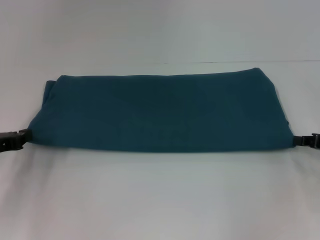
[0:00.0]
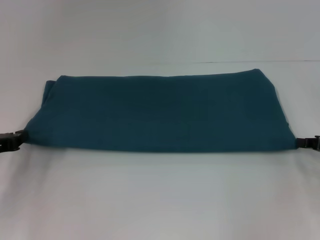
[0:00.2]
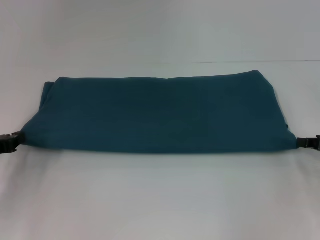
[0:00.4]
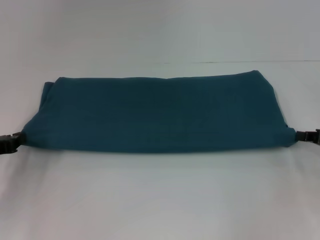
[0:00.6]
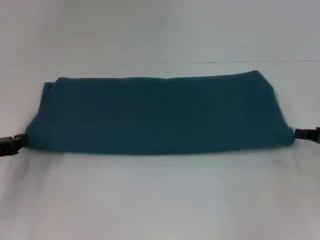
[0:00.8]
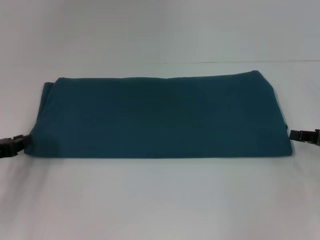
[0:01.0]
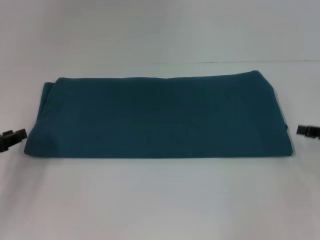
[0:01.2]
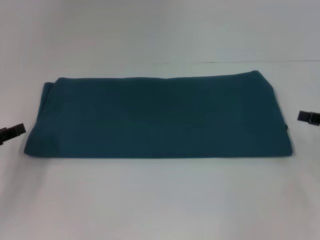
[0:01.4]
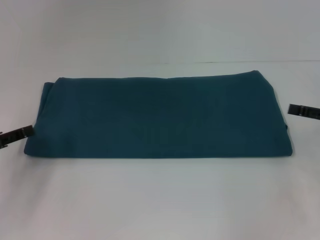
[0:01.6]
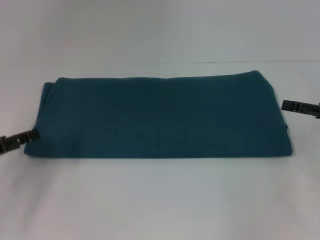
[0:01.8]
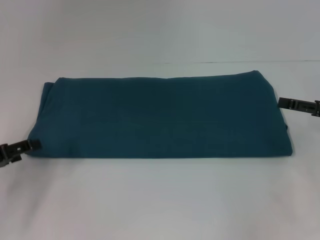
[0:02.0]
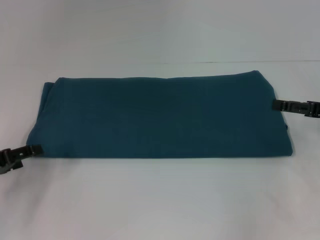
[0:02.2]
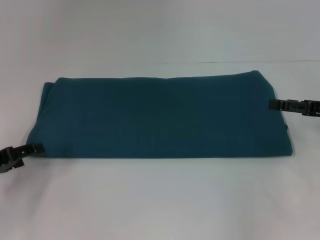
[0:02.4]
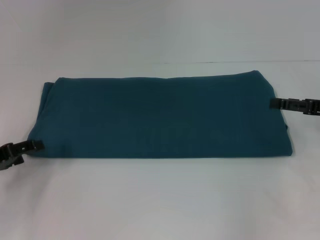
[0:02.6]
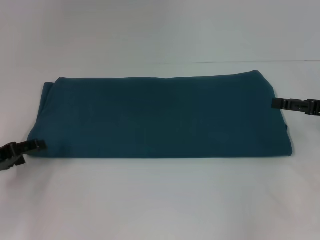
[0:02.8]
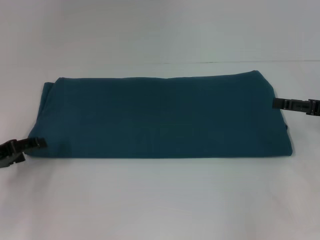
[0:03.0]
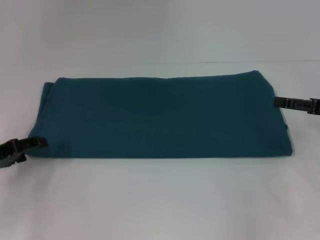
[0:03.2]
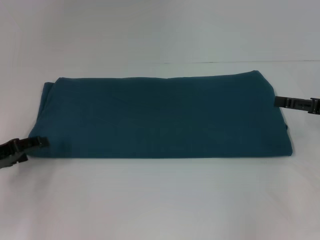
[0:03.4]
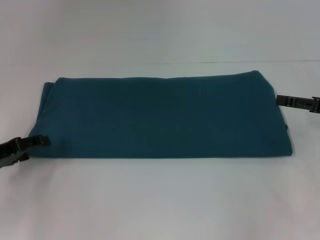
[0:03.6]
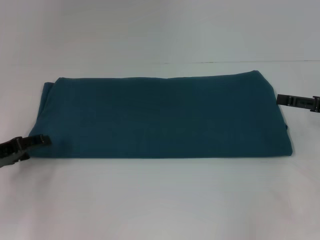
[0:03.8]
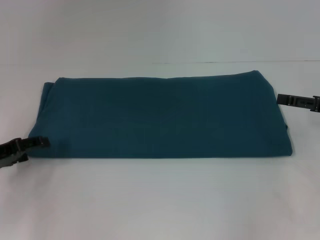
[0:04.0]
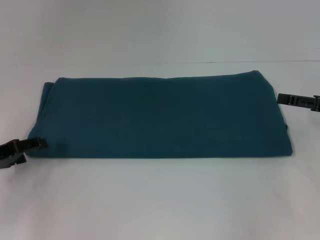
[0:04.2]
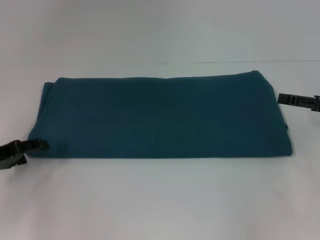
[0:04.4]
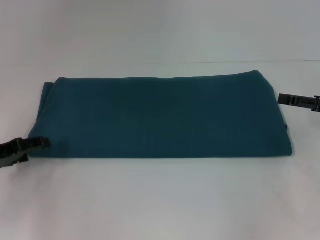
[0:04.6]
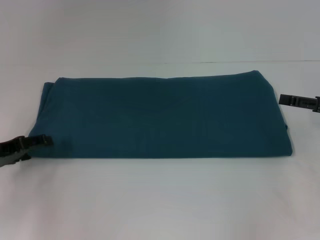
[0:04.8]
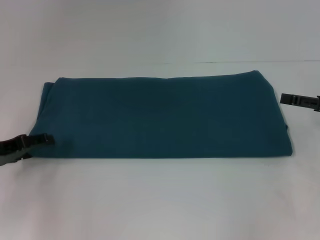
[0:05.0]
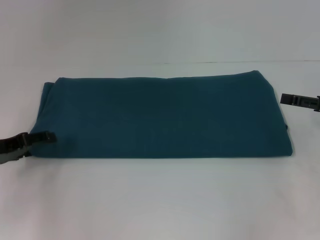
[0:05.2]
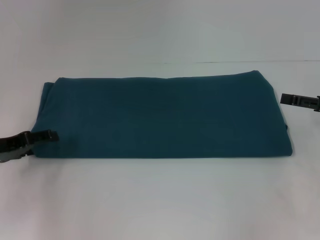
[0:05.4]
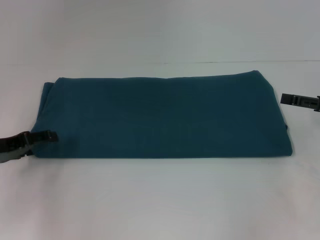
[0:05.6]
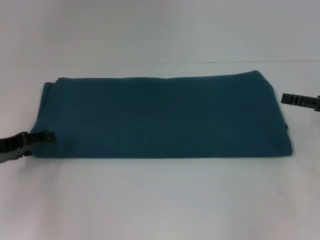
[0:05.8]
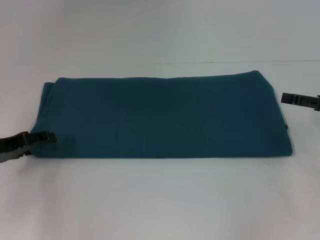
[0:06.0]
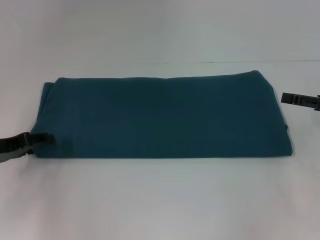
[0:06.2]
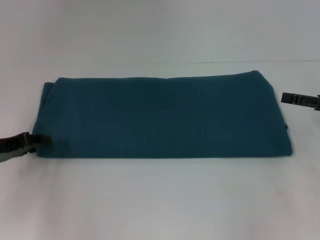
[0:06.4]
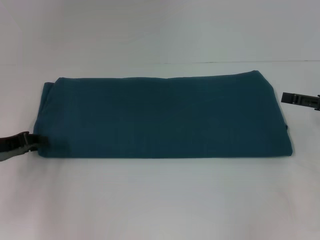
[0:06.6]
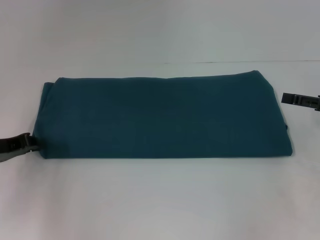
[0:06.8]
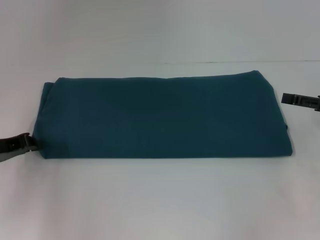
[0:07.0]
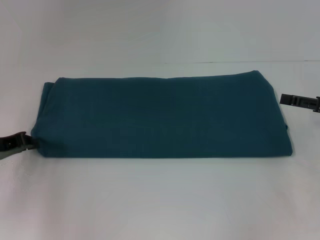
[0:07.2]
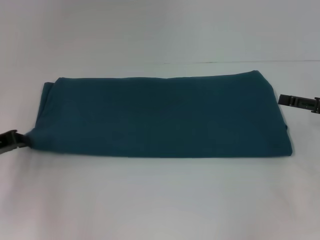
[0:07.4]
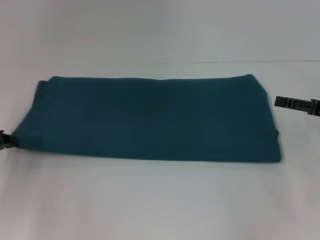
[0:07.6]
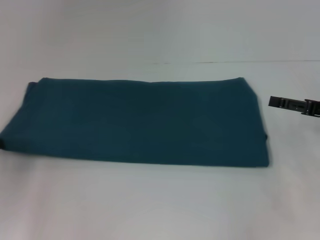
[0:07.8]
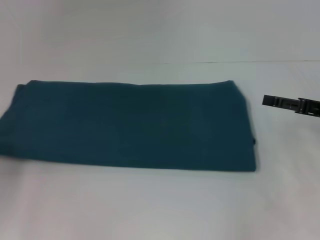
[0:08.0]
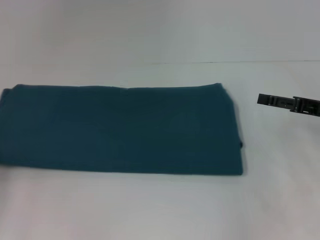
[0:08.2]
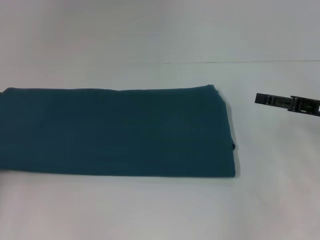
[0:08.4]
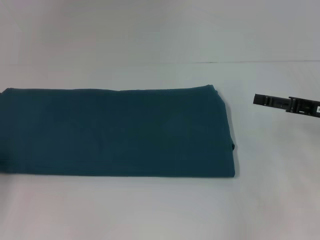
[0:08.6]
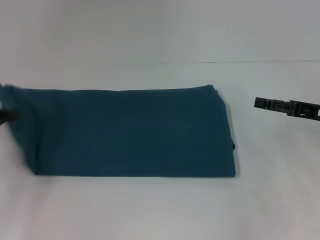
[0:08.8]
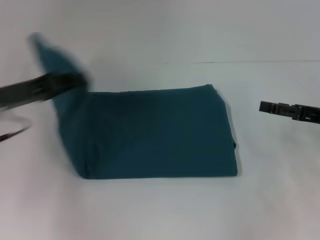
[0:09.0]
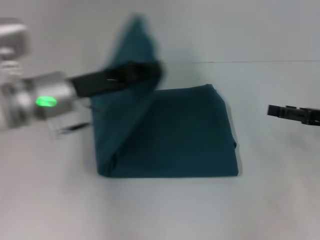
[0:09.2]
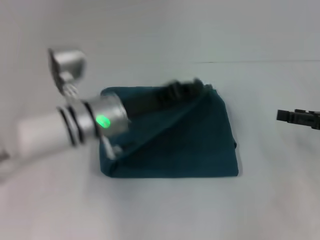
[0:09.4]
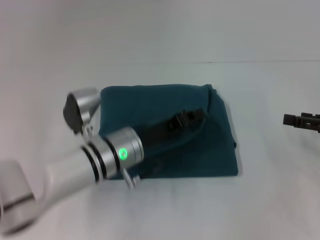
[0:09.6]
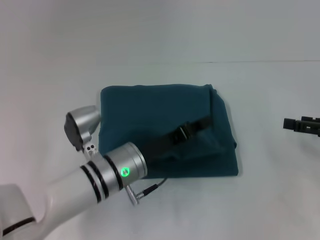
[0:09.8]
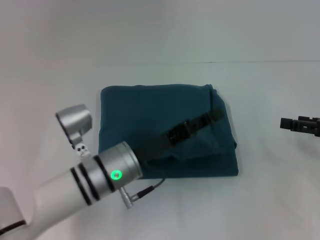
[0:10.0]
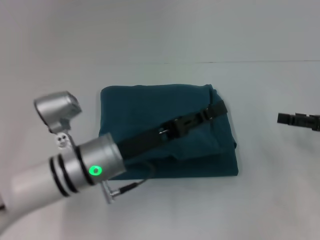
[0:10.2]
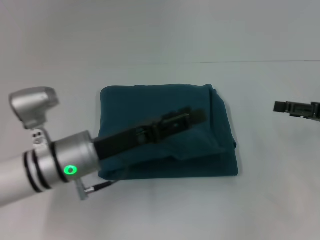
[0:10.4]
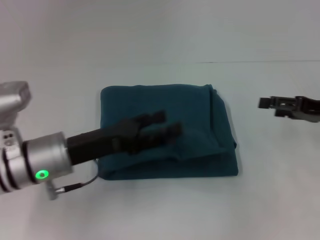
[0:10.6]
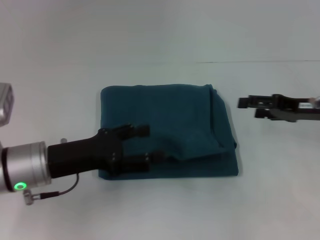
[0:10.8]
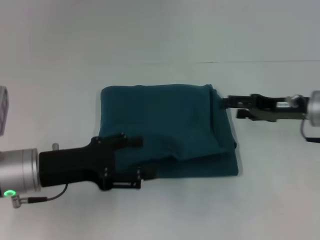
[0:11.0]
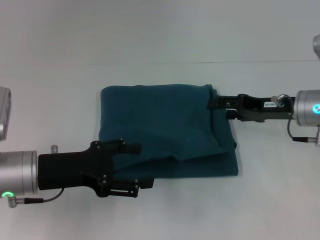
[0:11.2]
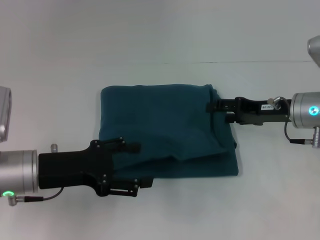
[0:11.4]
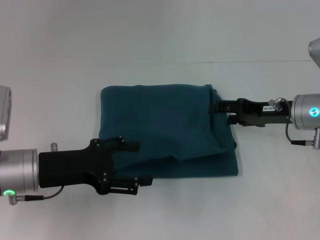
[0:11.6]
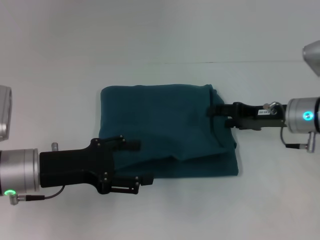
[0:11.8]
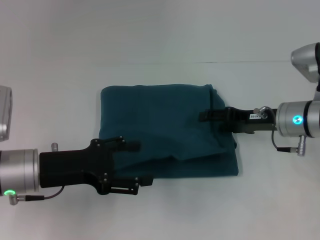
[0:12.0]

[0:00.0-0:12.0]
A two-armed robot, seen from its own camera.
Step, 0:00.0 to 0:10.2: Fold the clothes to the left.
0:00.0 to 0:01.6: The right gripper opens up, while the left gripper opens up.
0:01.6 to 0:03.0: The right gripper opens its fingers.
0:03.0 to 0:04.4: Both grippers stay about where they are.
0:04.4 to 0:06.0: The grippers move only a little.
0:06.0 to 0:07.6: The left gripper closes its fingers.
0:07.6 to 0:09.0: The left gripper goes about 10 cm to the right and upward.
0:09.0 to 0:10.4: The left gripper moves to the right and downward, about 15 cm, and opens.
0:10.4 to 0:12.0: The right gripper travels to the left by roughly 10 cm, while the left gripper shifts about 10 cm to the left, and opens its fingers.

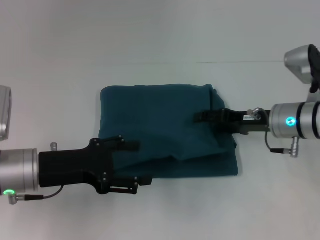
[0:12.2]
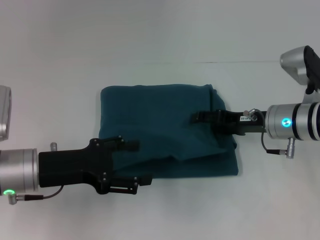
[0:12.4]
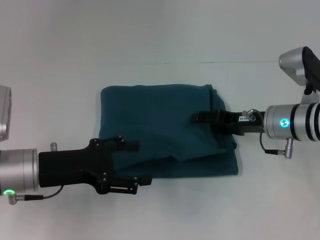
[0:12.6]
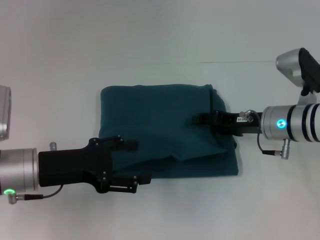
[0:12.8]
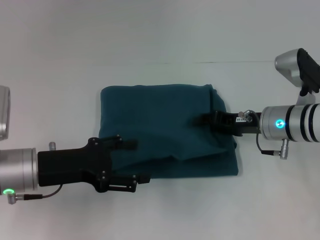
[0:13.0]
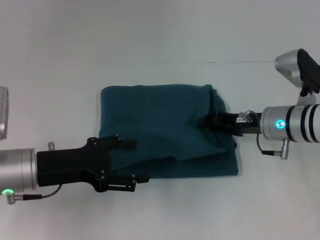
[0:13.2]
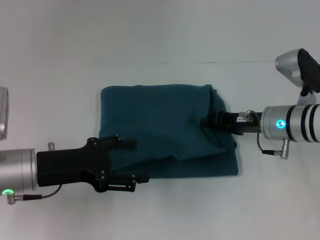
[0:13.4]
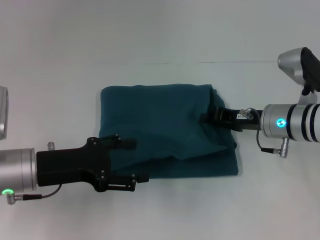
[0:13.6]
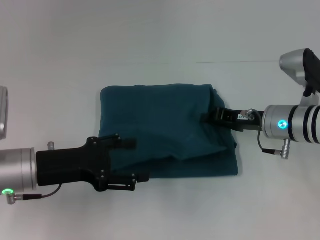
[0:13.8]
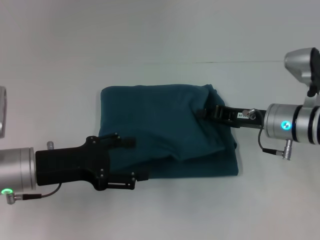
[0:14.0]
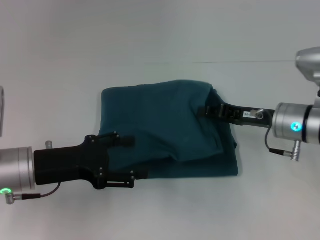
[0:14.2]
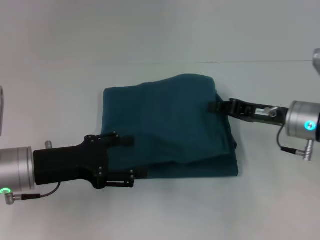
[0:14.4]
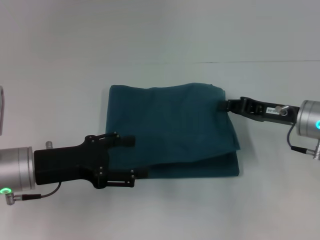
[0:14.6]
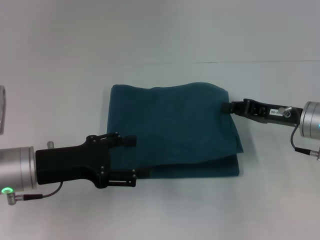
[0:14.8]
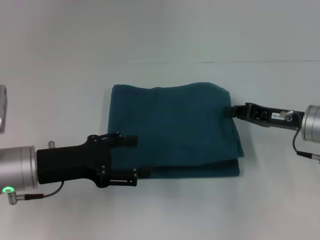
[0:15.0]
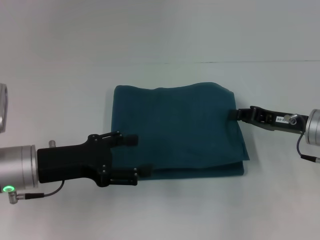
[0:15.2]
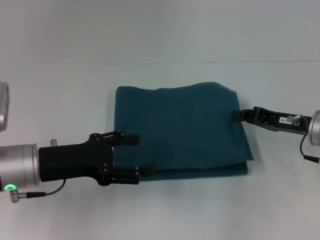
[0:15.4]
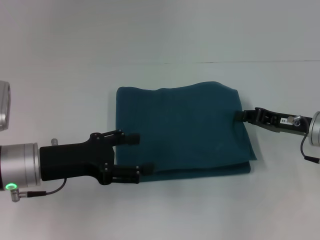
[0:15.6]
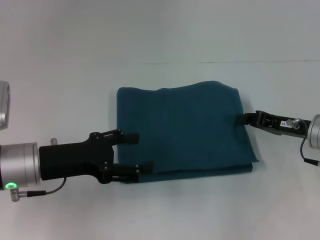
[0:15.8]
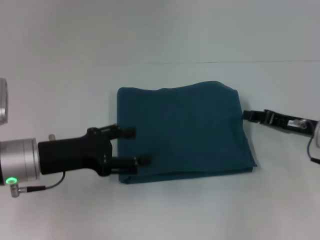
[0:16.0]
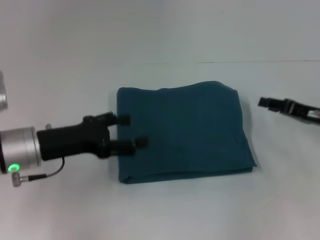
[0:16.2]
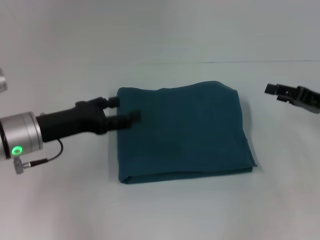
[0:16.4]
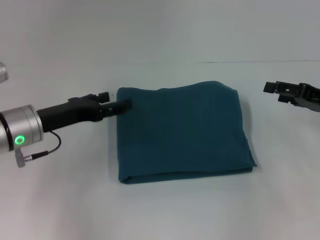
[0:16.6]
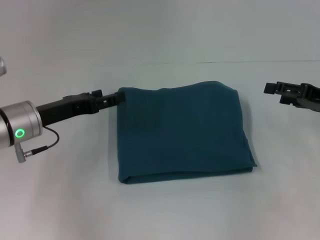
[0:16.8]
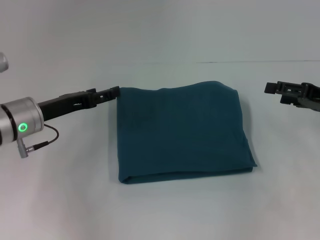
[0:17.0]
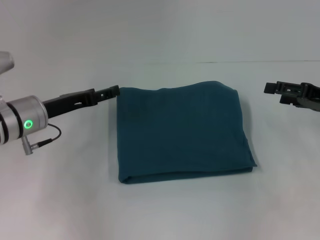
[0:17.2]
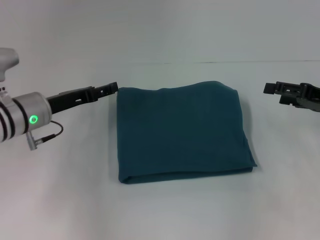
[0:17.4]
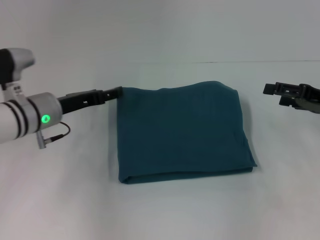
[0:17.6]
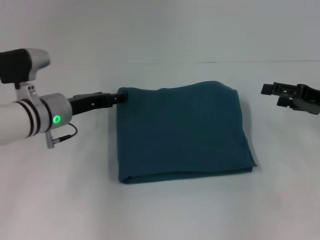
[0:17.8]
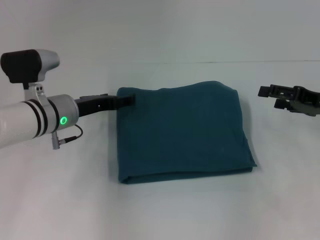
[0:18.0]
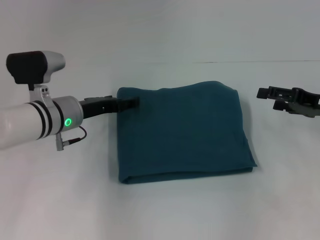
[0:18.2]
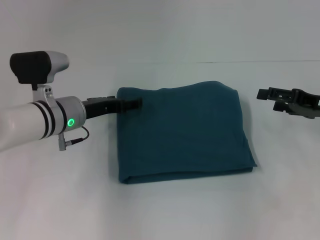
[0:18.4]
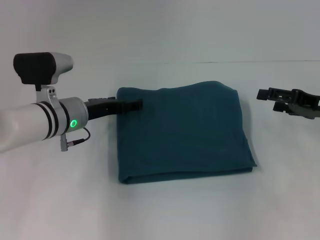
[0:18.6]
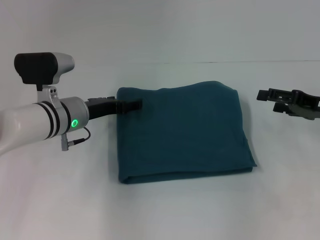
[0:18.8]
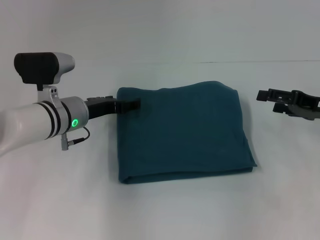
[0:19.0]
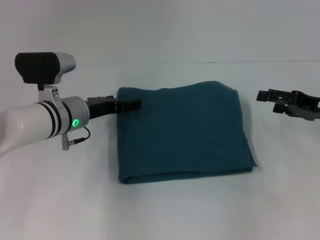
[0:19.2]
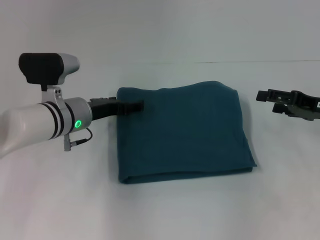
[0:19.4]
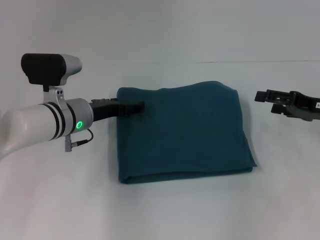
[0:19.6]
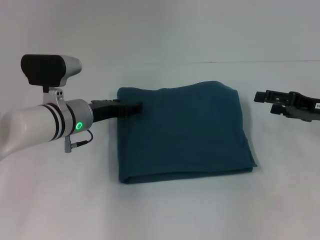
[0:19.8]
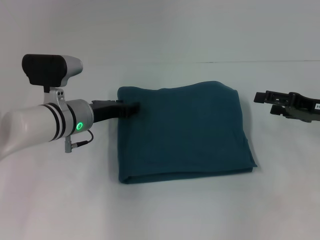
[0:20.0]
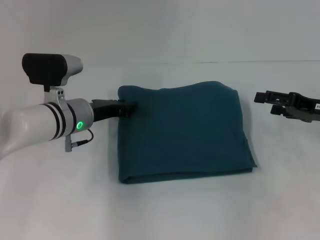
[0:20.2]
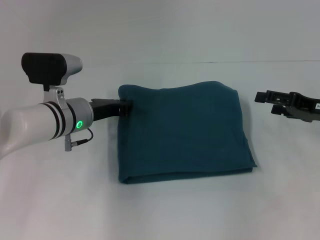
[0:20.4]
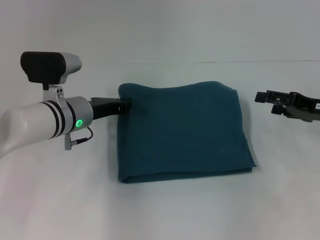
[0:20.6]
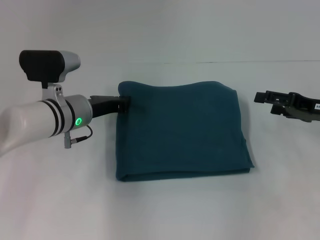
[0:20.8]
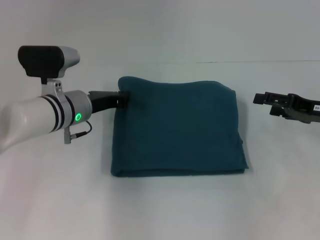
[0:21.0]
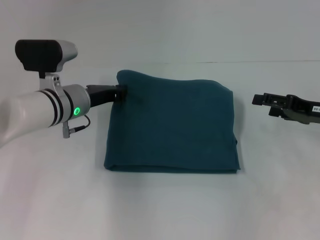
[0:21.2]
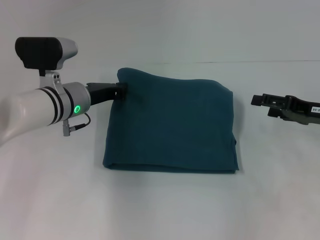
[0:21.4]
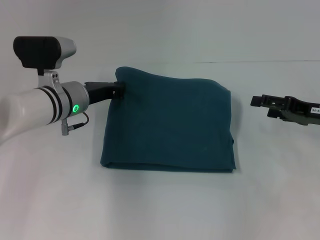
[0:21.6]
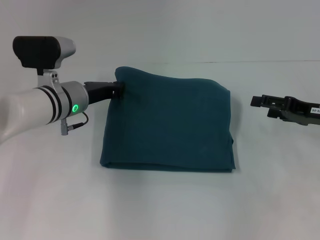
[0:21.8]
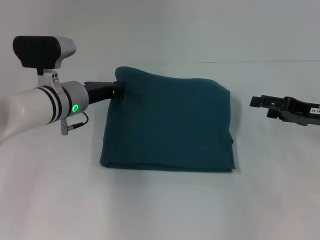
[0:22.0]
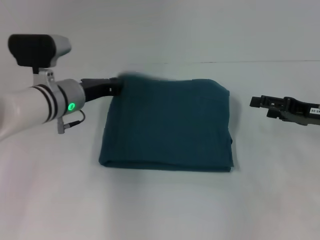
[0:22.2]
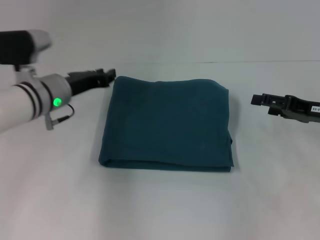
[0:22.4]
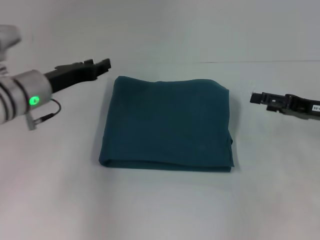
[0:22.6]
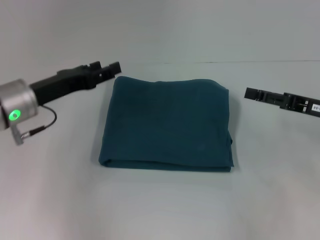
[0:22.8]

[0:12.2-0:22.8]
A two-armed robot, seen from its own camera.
0:12.2 to 0:13.8: The right gripper closes.
0:13.8 to 0:15.2: The right gripper is displaced to the right by approximately 5 cm.
0:15.2 to 0:16.8: The right gripper is displaced to the right by roughly 5 cm, and opens. The left gripper is displaced forward by some 5 cm.
0:16.8 to 0:18.2: The left gripper moves to the right, some 5 cm.
0:18.2 to 0:19.8: There are only small adjustments of the grippers.
0:19.8 to 0:21.2: The left gripper closes up.
0:21.2 to 0:22.8: The left gripper travels to the left and backward by approximately 10 cm, and opens its fingers.
